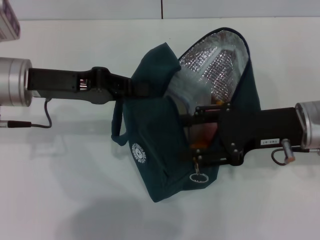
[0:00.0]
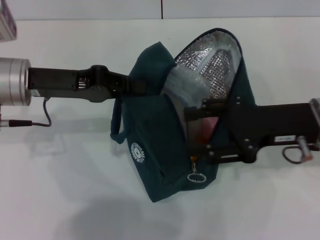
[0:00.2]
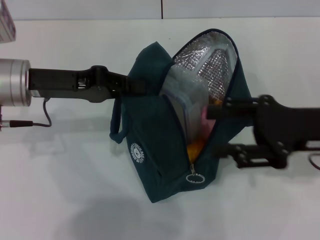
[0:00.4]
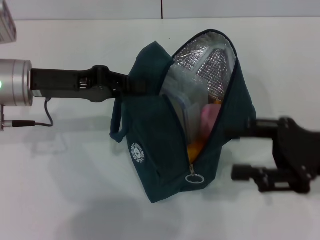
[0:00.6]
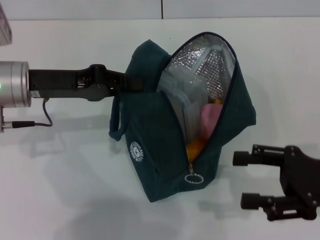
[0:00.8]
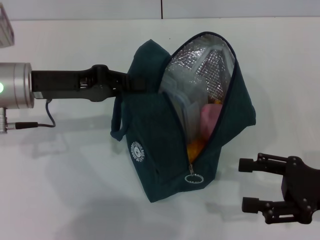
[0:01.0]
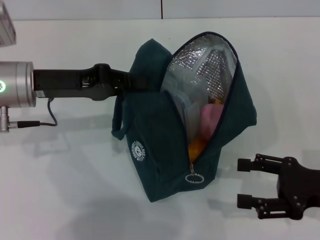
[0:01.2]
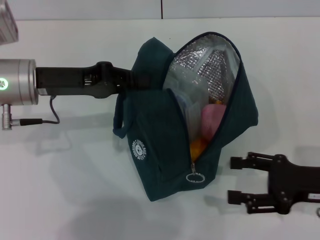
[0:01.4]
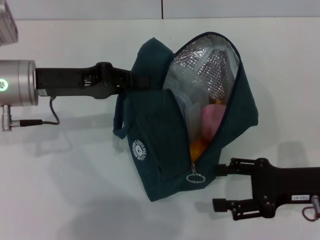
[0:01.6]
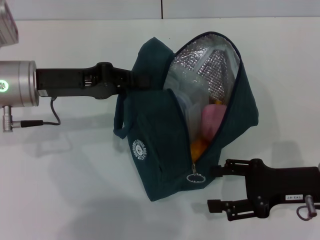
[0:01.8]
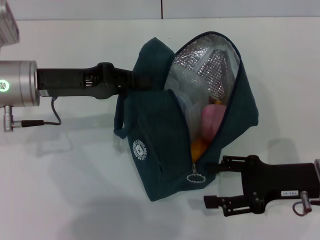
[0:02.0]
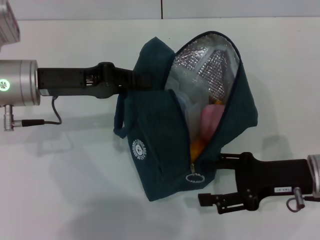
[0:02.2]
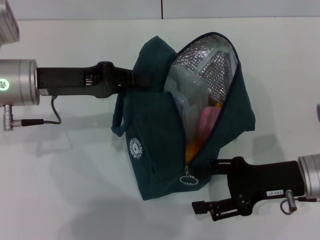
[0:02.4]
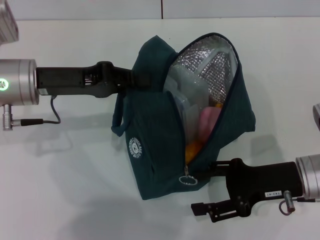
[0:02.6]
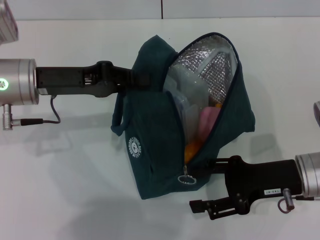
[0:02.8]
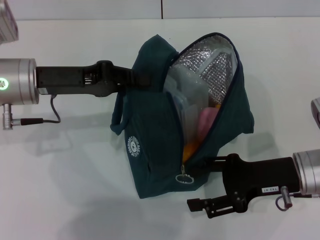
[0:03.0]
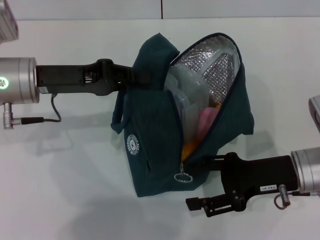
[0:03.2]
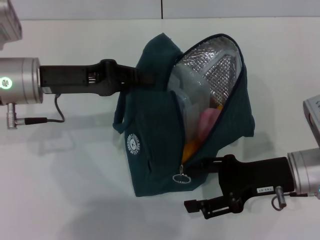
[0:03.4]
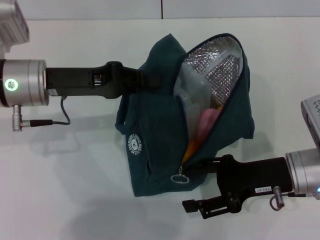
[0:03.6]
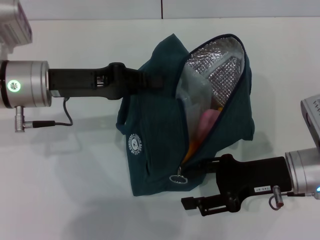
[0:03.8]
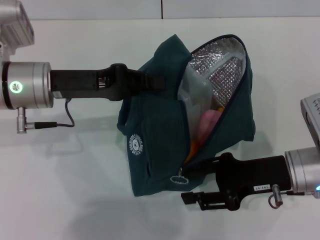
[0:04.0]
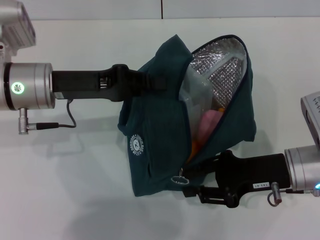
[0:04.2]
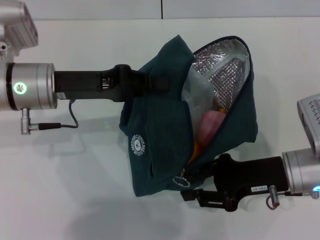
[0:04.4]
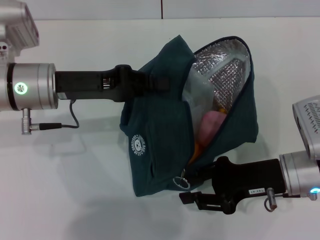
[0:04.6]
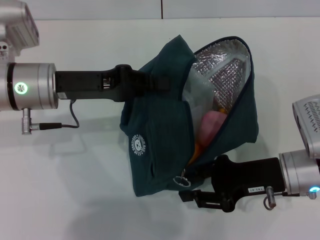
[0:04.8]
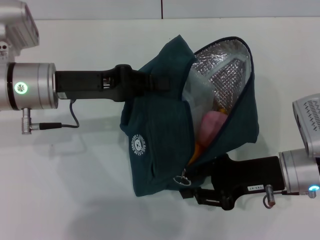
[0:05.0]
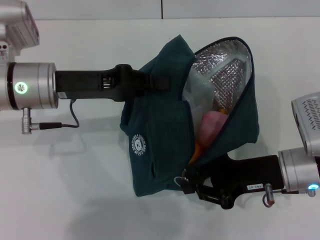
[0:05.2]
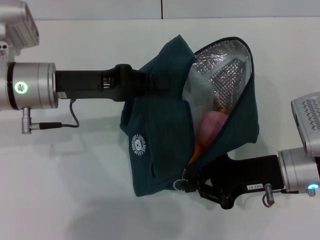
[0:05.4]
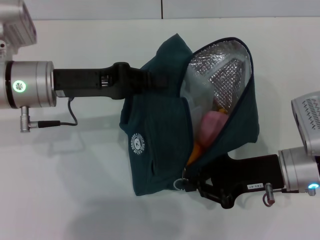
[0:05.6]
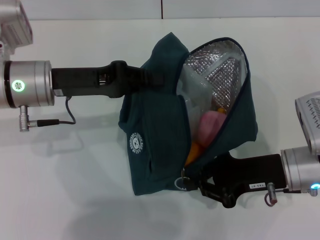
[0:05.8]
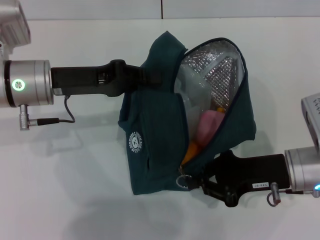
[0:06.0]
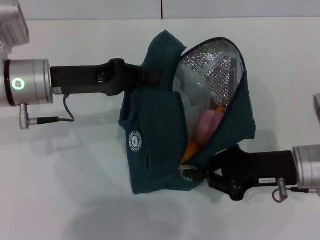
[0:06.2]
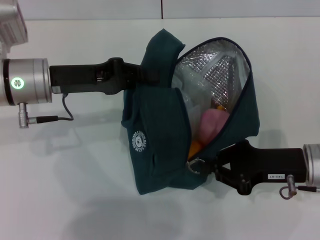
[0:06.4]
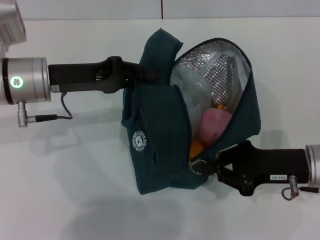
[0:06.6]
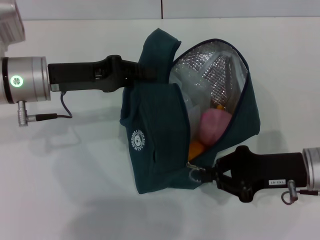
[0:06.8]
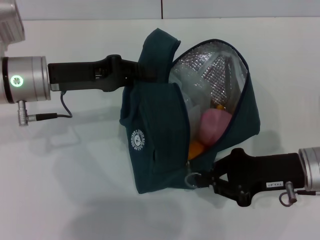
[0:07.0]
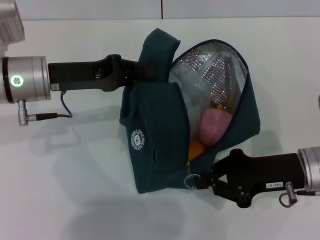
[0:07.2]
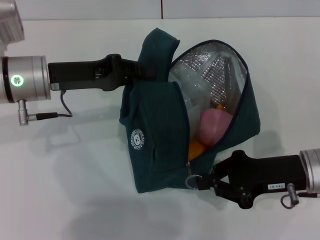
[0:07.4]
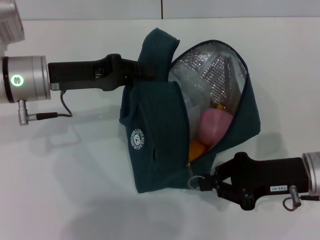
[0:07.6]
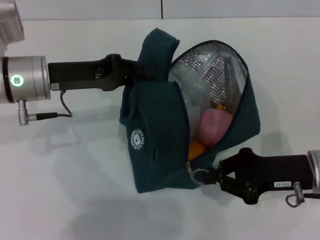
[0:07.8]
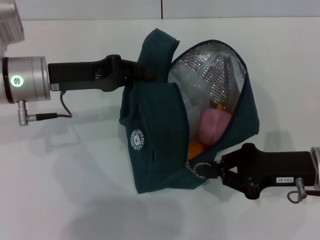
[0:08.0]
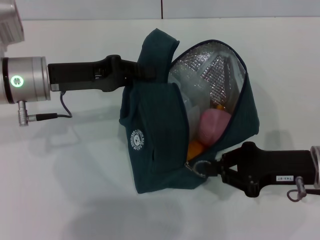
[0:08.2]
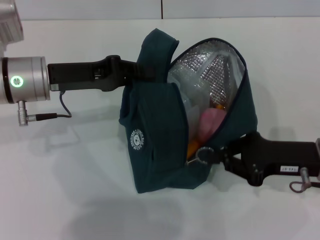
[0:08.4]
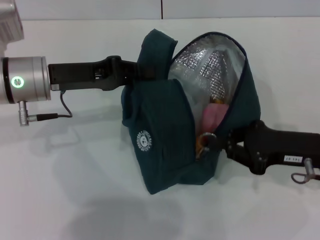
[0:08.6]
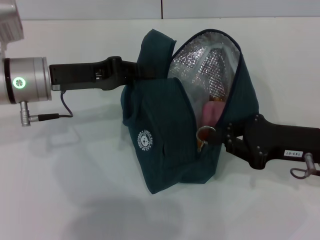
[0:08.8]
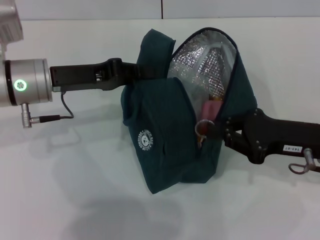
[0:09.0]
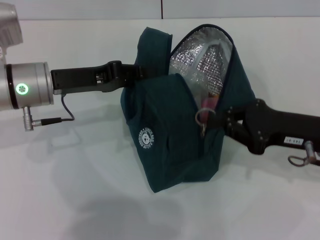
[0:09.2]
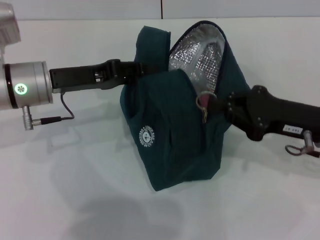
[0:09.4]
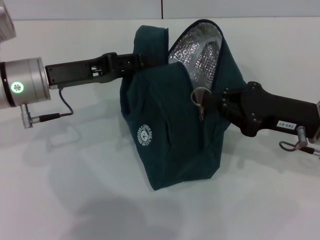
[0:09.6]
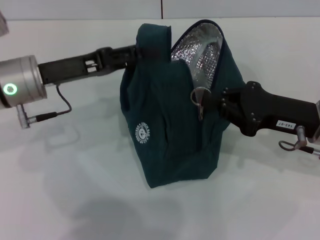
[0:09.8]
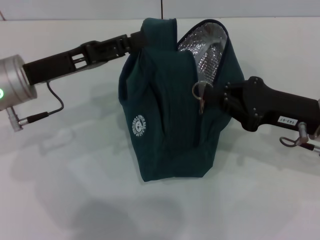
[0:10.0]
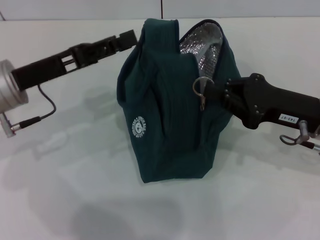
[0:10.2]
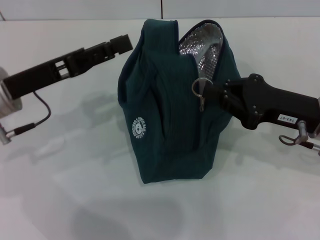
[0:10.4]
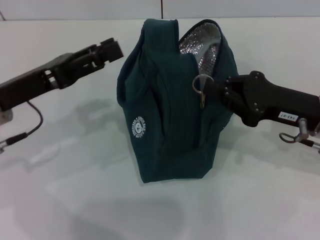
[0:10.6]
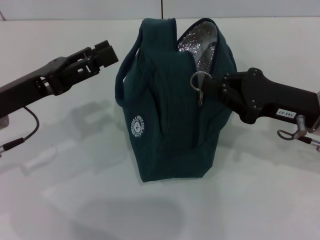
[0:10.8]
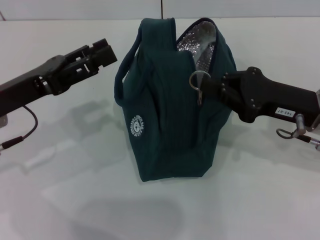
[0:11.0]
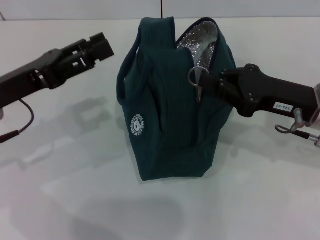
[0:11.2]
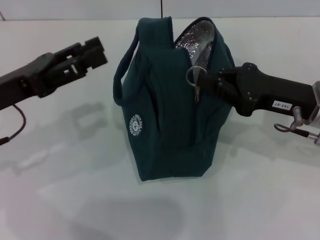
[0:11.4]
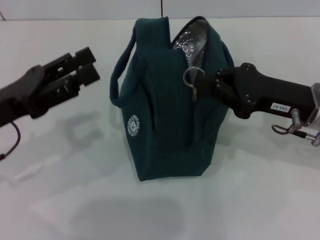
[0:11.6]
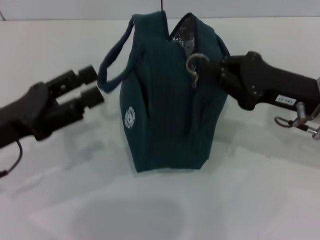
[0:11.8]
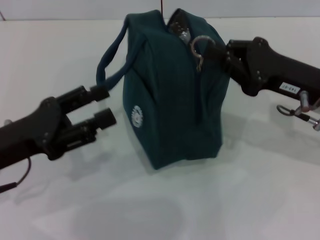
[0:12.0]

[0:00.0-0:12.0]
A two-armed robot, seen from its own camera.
Step, 0:00.0 to 0:10.8: Hold the lunch bag with your left hand.
0:00.0 to 0:01.6: The right gripper travels downward, to the right and backward by approximately 10 cm.
0:01.6 to 0:03.0: The grippers make only small movements.
0:03.0 to 0:04.4: The right gripper closes its fingers.
0:04.4 to 0:06.0: The right gripper closes.
0:06.0 to 0:07.6: The grippers stay close to where they were, moving slightly.
0:09.0 to 0:10.4: The left gripper moves some 5 cm, and opens its fingers.
0:10.4 to 0:12.0: The left gripper moves backward, approximately 5 cm.

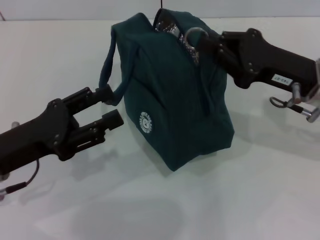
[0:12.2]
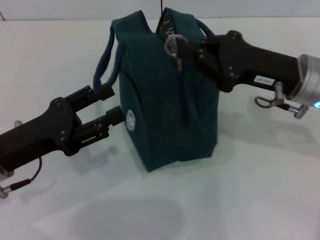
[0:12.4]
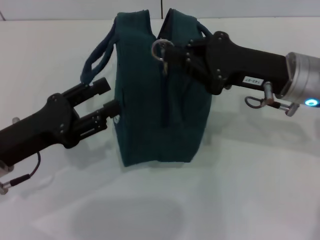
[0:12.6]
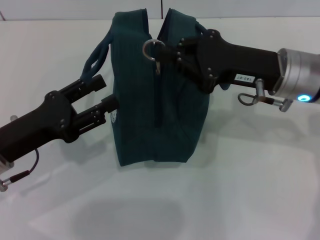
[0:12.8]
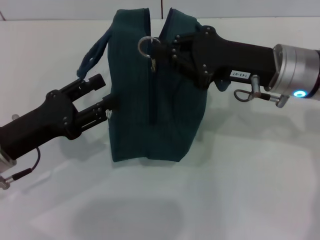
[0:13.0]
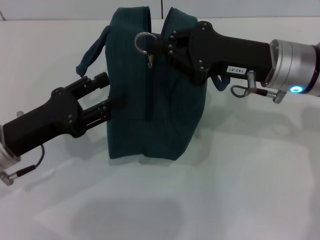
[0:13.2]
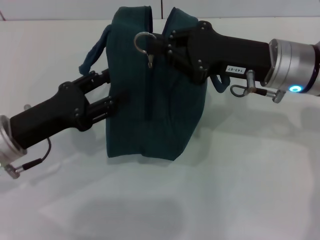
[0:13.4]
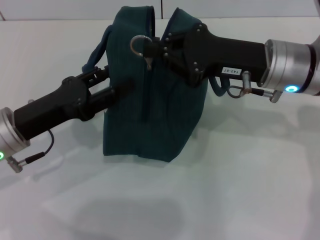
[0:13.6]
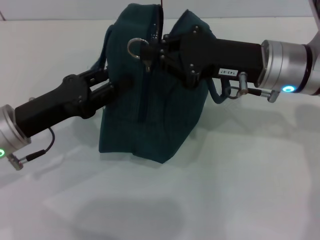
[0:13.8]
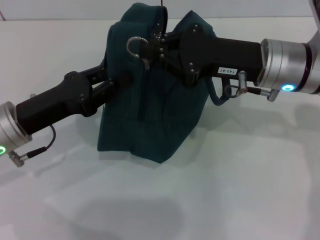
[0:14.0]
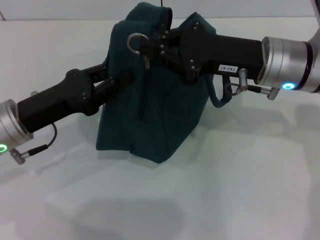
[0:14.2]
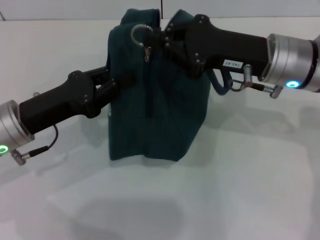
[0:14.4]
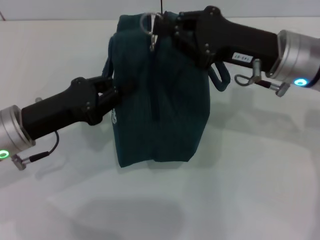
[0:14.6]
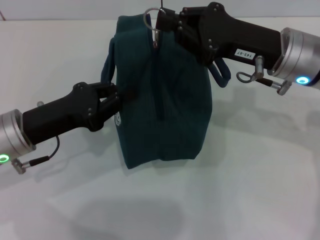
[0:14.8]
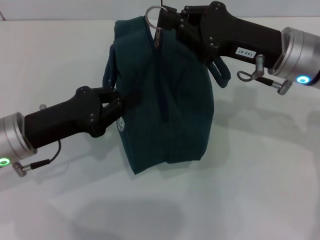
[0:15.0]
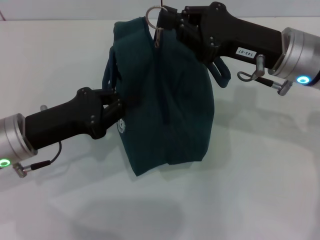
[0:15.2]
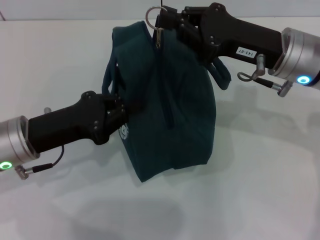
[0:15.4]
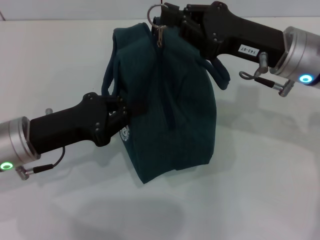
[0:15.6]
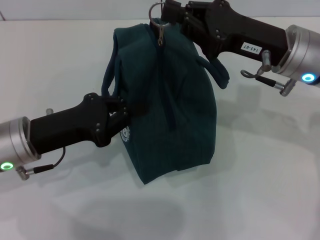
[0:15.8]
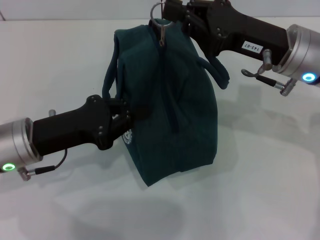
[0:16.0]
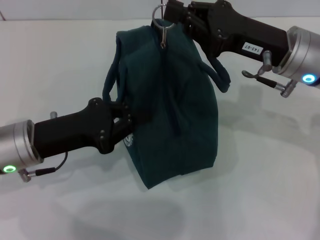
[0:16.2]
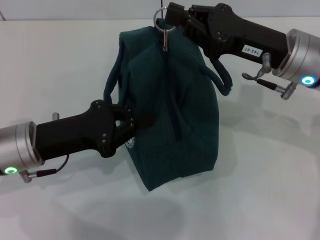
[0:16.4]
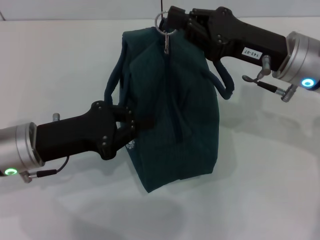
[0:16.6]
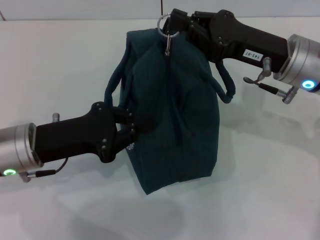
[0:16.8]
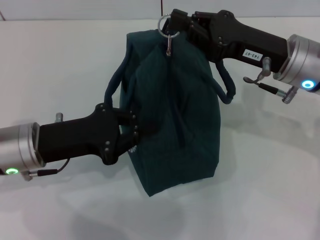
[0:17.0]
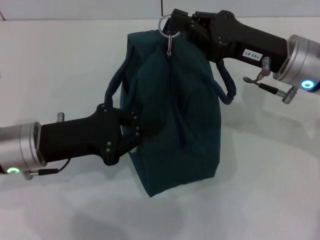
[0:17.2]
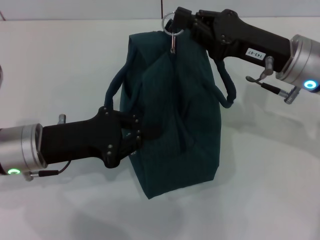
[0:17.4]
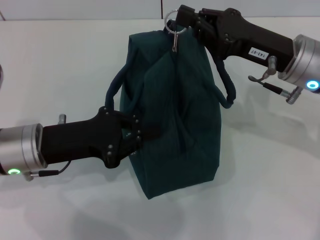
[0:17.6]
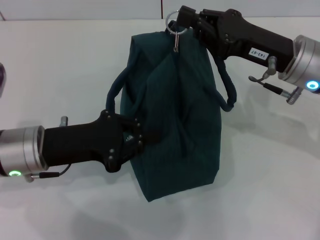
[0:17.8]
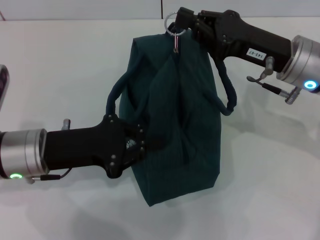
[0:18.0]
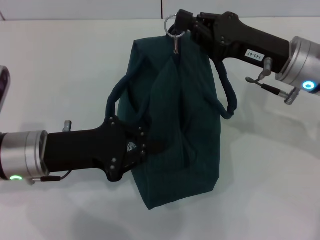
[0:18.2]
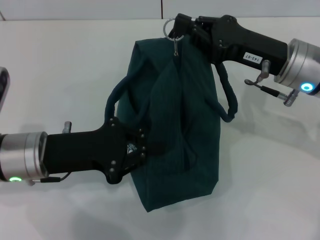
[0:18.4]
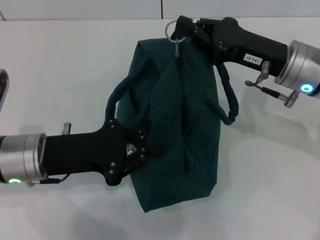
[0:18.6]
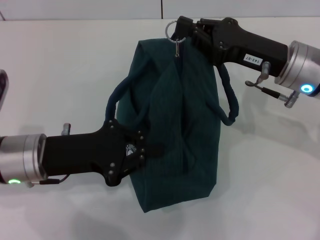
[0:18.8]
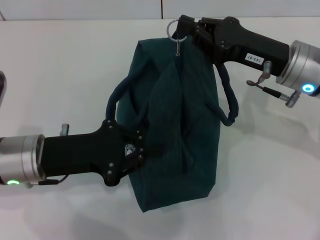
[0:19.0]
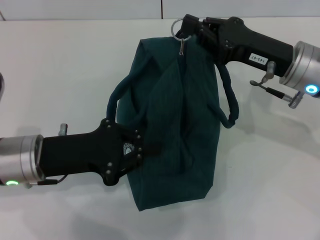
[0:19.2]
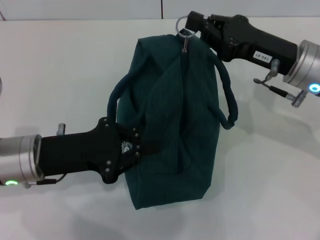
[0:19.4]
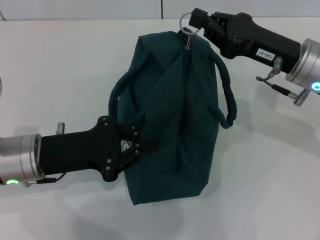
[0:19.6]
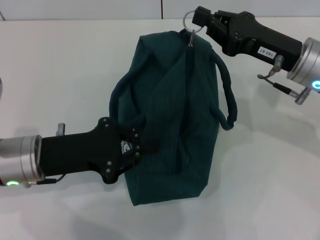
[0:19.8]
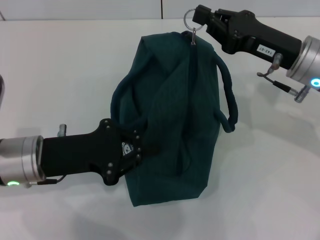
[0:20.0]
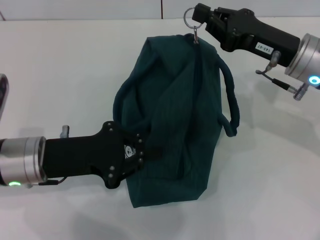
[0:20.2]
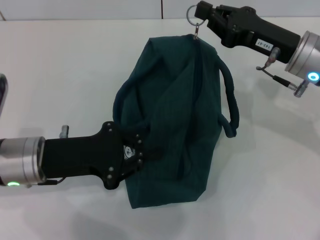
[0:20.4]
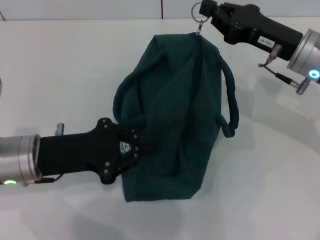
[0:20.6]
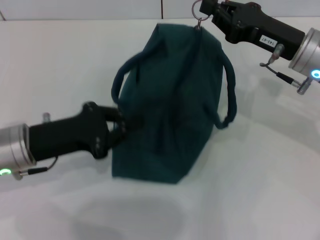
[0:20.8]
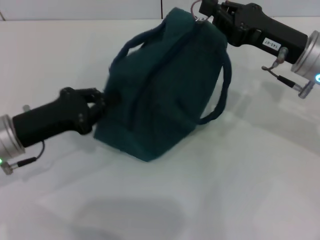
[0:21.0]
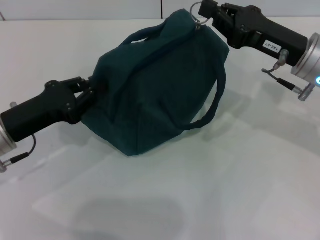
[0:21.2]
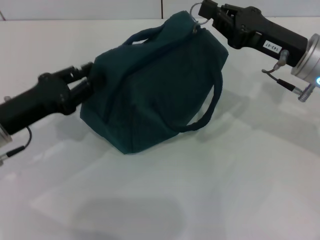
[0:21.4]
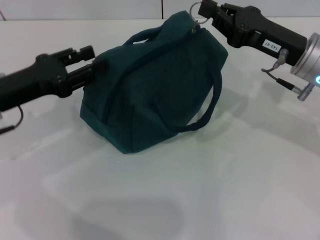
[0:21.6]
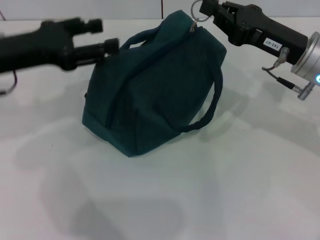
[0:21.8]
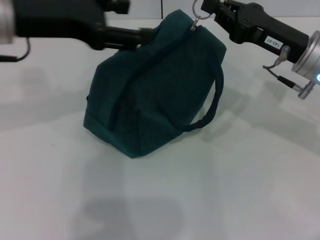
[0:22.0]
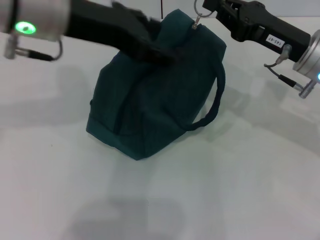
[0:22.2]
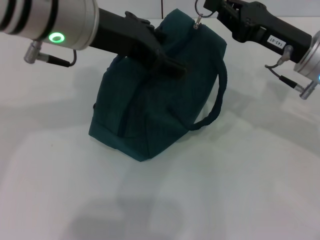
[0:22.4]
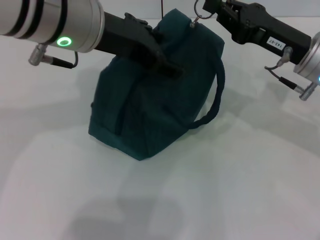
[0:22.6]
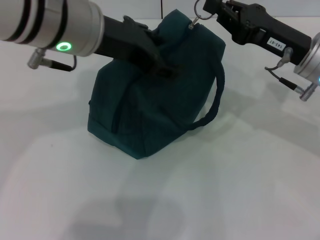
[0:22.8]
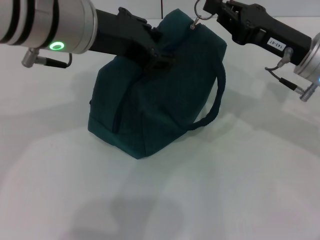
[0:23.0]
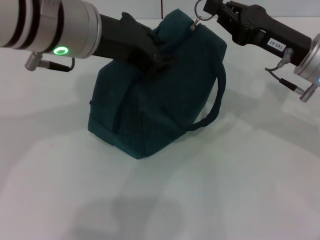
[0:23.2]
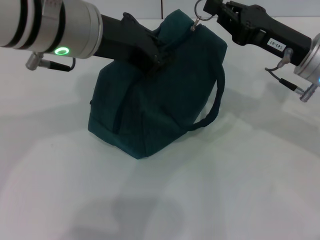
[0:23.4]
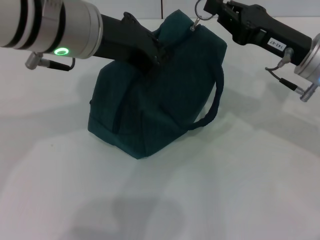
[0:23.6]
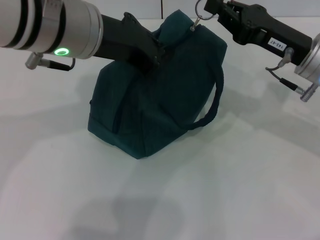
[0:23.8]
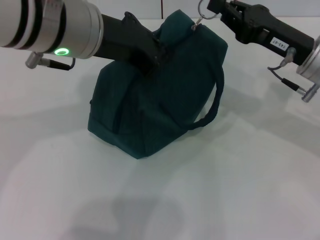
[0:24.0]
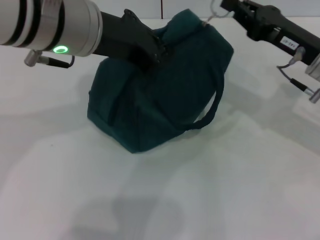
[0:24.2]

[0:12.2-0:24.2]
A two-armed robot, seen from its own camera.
0:12.2 to 0:13.8: The right gripper heads to the left, covering about 5 cm.
0:13.8 to 0:15.2: The left gripper closes.
0:15.2 to 0:19.8: The grippers stay close to where they were, moving slightly.
0:21.2 to 0:22.6: The left gripper is displaced upward and to the right by about 25 cm, and opens its fingers.
0:22.6 to 0:24.2: The left gripper closes.
